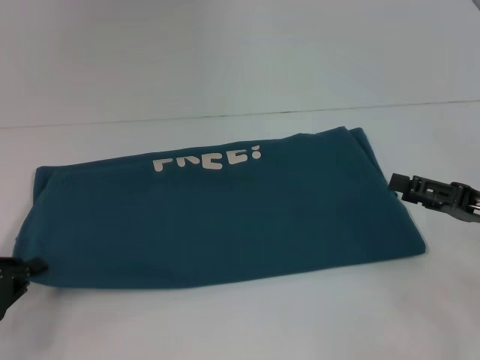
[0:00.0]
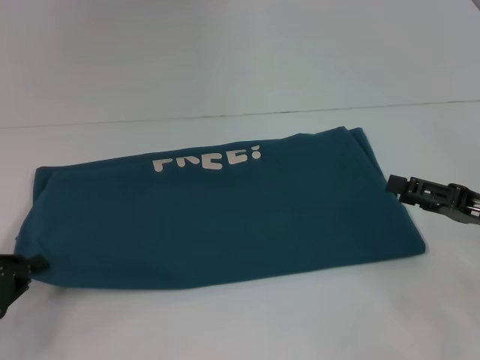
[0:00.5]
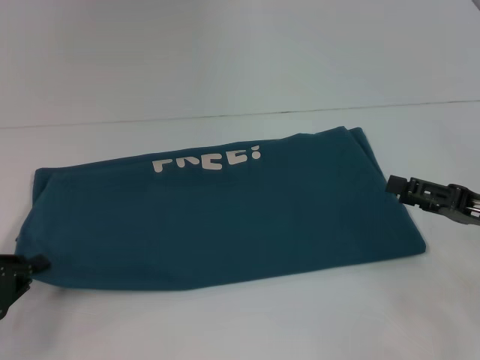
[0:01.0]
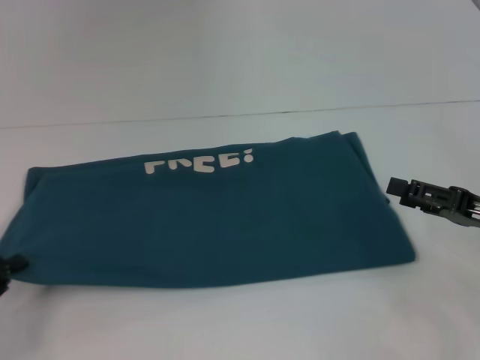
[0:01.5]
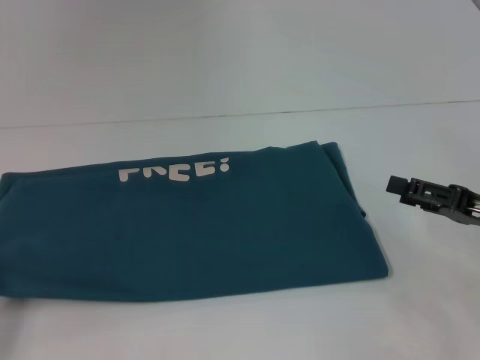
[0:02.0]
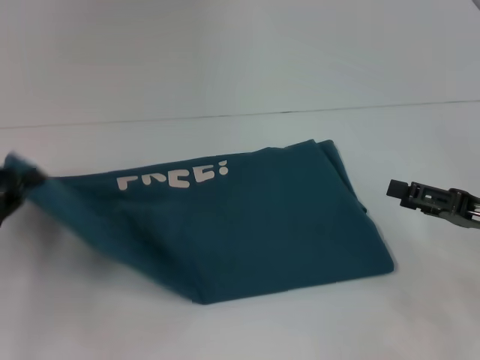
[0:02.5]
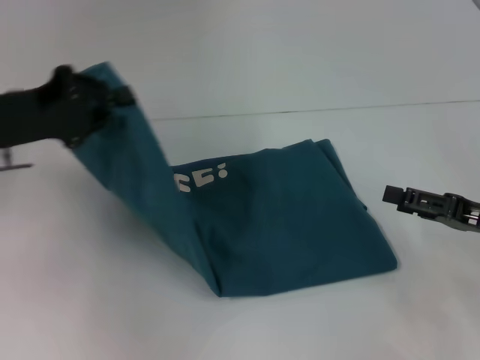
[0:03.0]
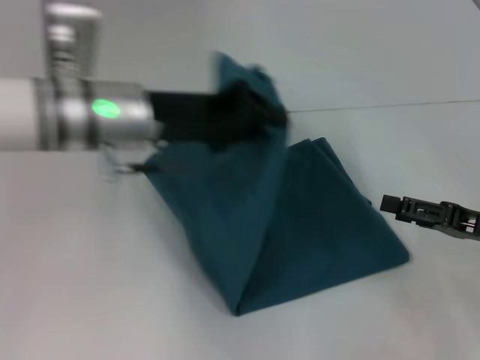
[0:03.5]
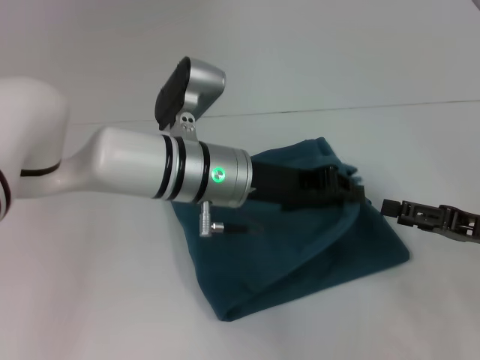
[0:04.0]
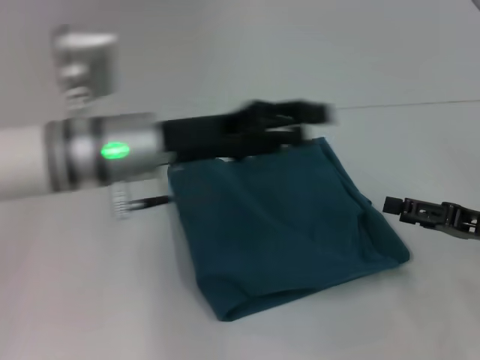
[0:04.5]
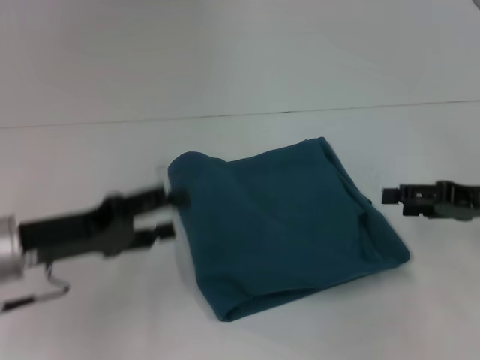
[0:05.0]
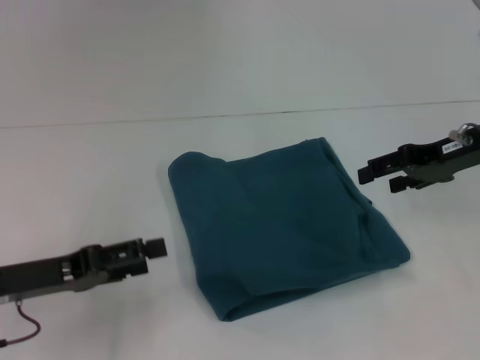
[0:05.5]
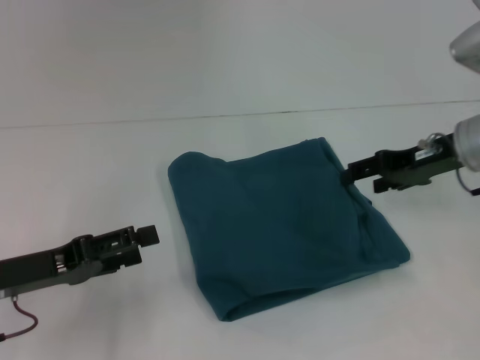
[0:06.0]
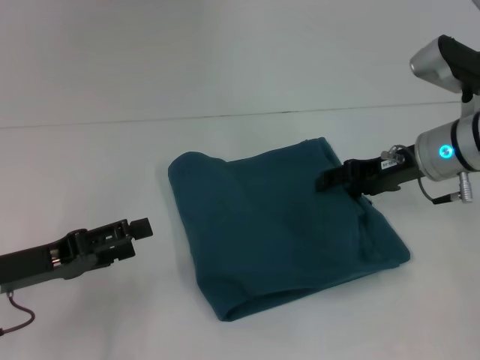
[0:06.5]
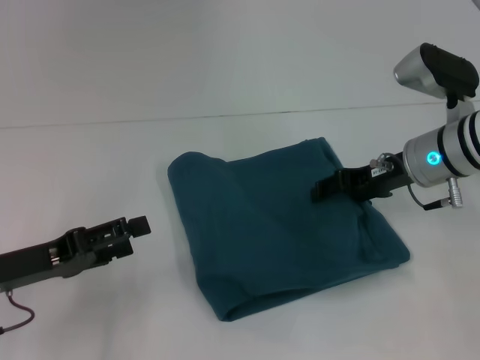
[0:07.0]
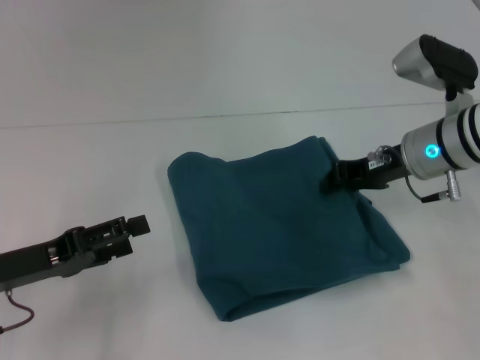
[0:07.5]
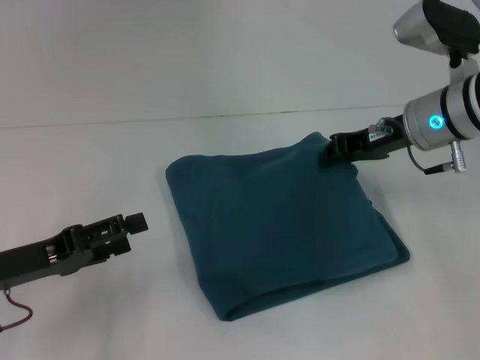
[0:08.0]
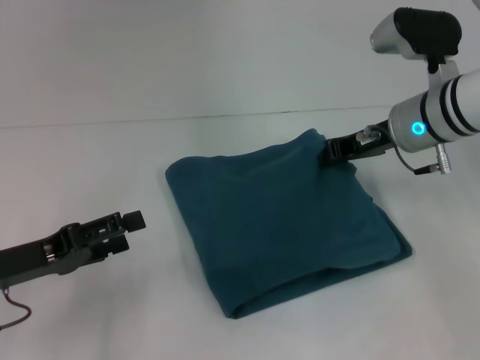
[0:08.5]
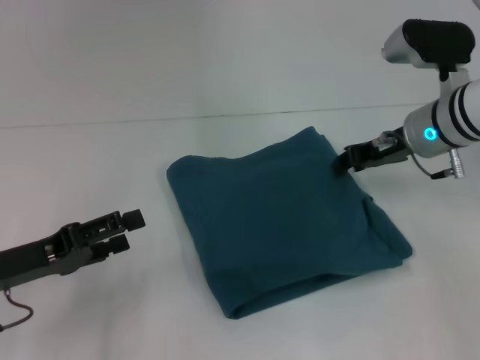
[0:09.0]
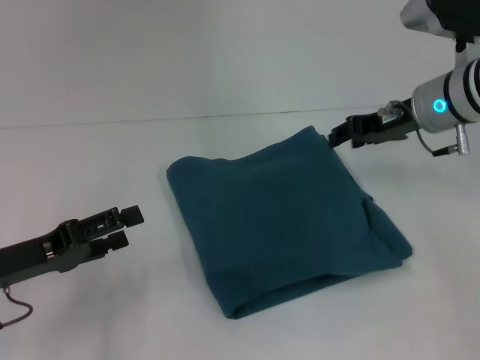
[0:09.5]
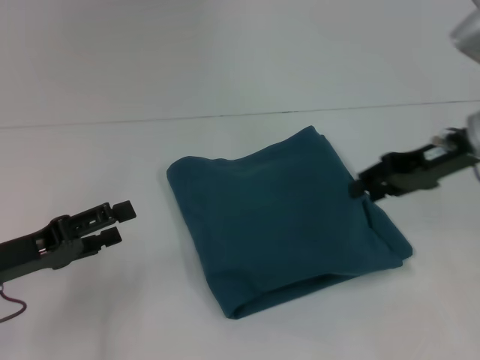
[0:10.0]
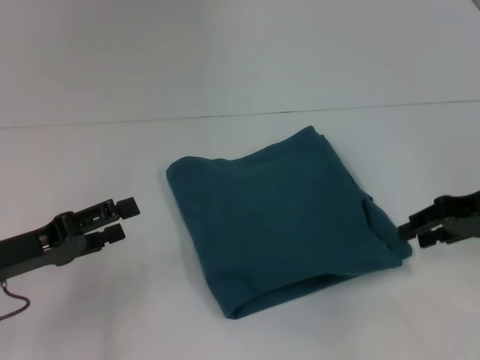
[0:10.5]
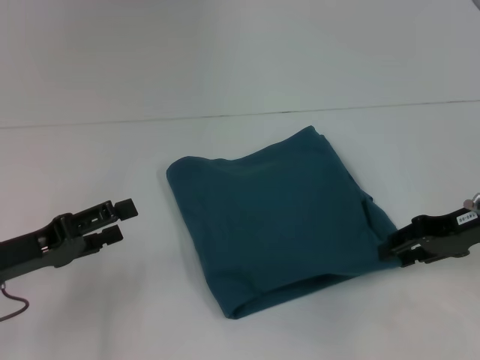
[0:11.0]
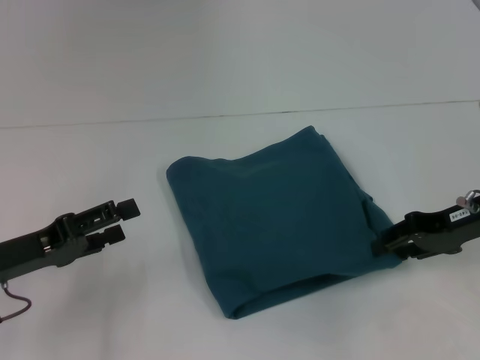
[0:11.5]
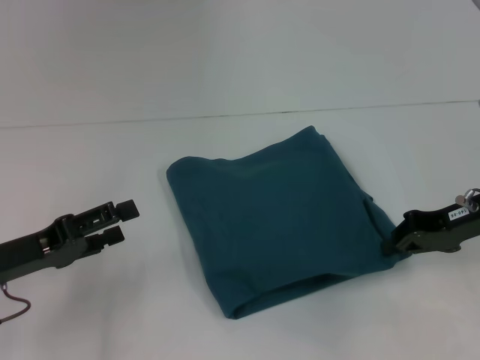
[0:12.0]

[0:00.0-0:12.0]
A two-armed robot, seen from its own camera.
Step, 0:00.0 to 0:04.0: Fold the clothes to the left.
0:00.0 to 0:02.0: There are only small adjustments of the grippers.
0:02.0 to 0:04.0: The left gripper shifts approximately 35 cm to the right and forward.
0:04.0 to 0:06.0: The right gripper shifts some 15 cm forward, upward and to the left; the left gripper shifts approximately 25 cm to the left and backward, and opens.
0:06.0 to 0:08.0: The right gripper moves to the left, about 5 cm, and closes.
0:08.0 to 0:10.0: The right gripper moves to the right, some 5 cm, and opens.
0:10.0 to 0:12.0: The right gripper ends up some 5 cm from where it was.

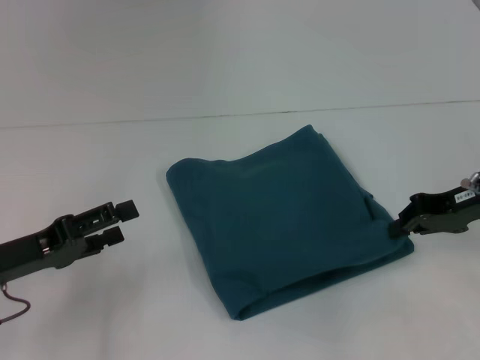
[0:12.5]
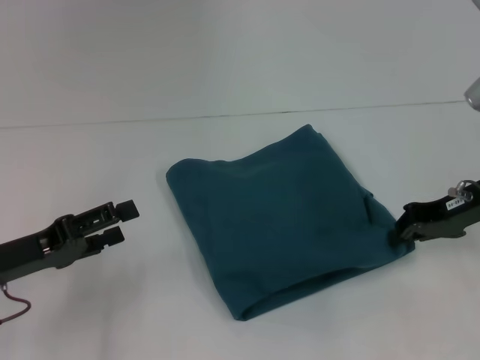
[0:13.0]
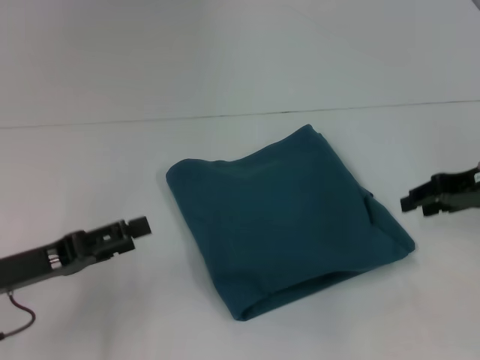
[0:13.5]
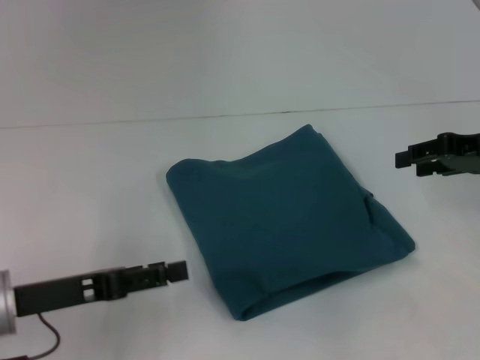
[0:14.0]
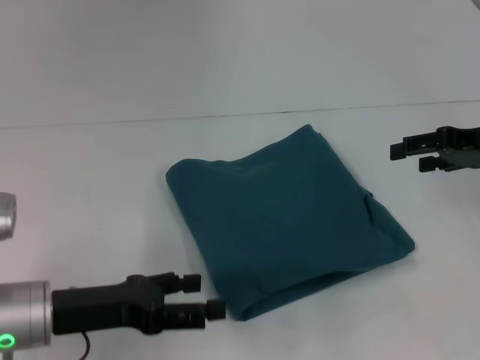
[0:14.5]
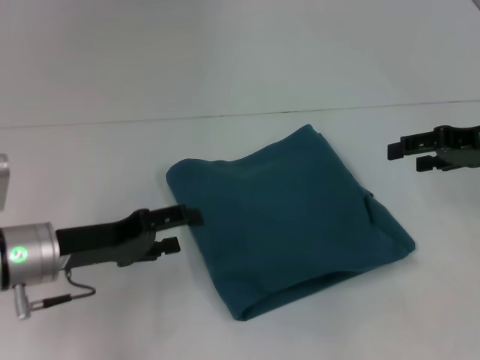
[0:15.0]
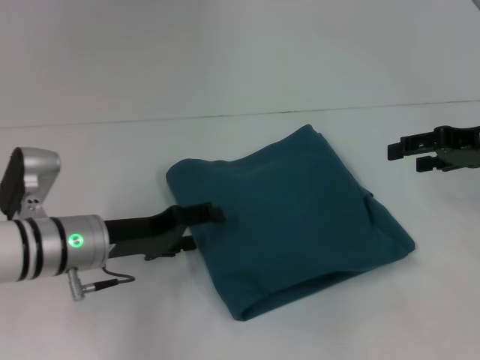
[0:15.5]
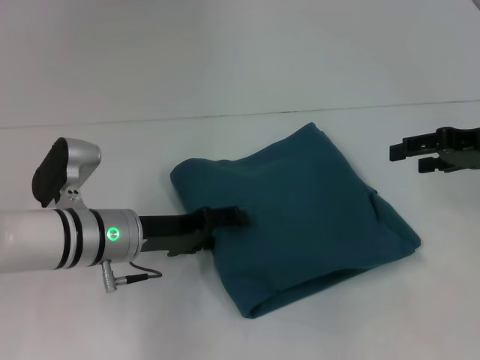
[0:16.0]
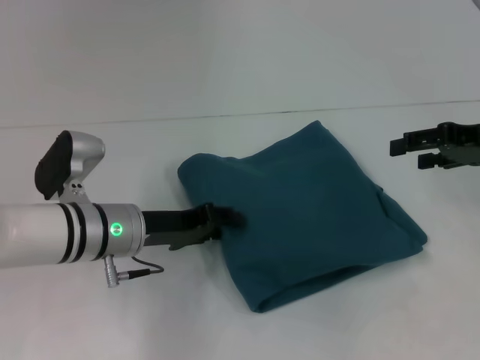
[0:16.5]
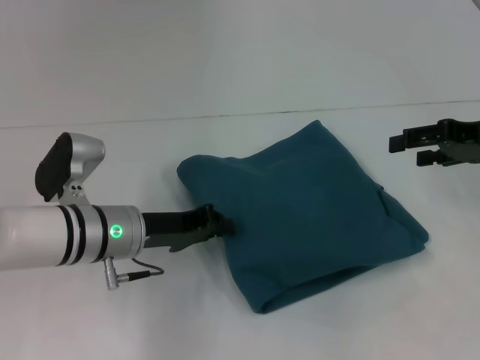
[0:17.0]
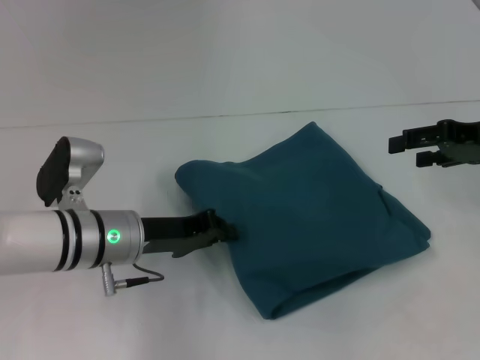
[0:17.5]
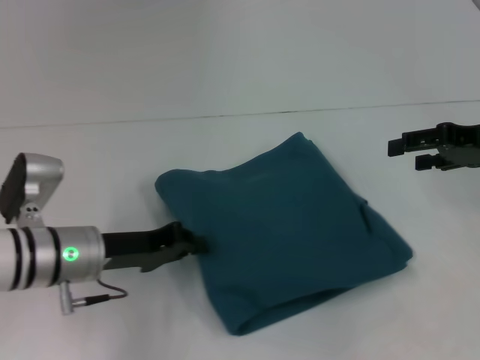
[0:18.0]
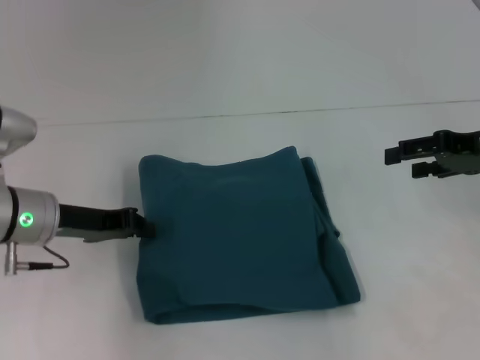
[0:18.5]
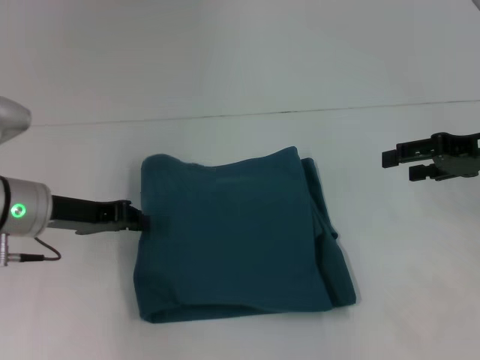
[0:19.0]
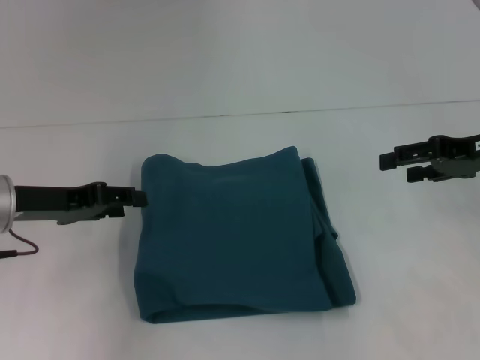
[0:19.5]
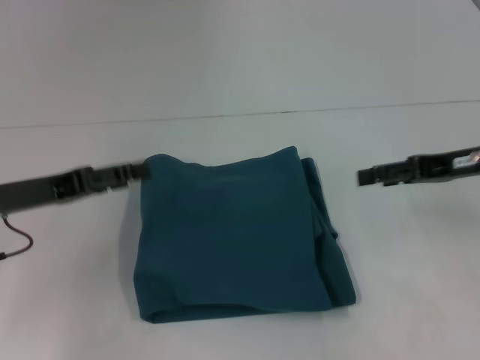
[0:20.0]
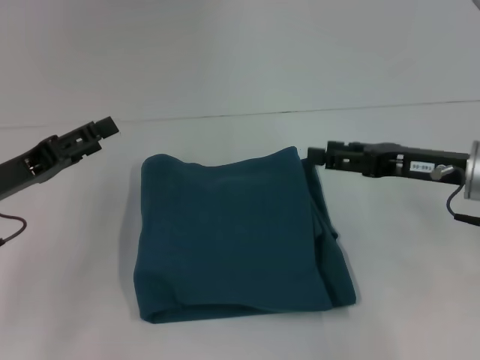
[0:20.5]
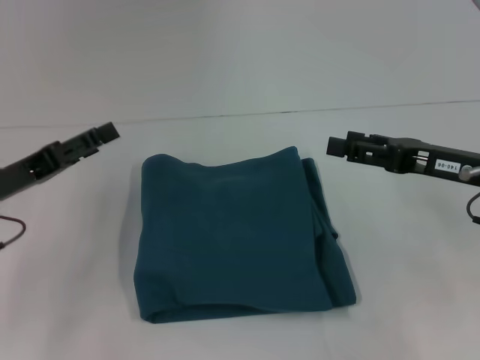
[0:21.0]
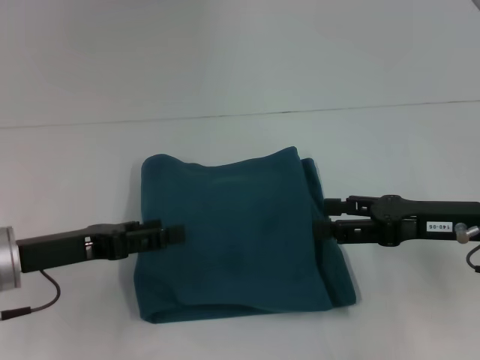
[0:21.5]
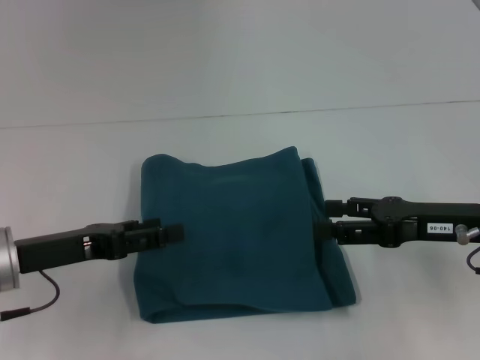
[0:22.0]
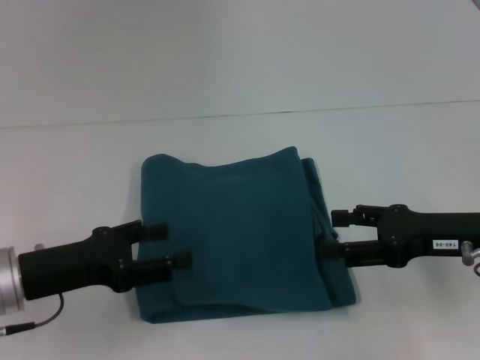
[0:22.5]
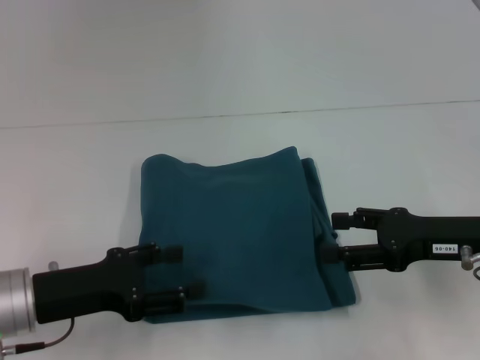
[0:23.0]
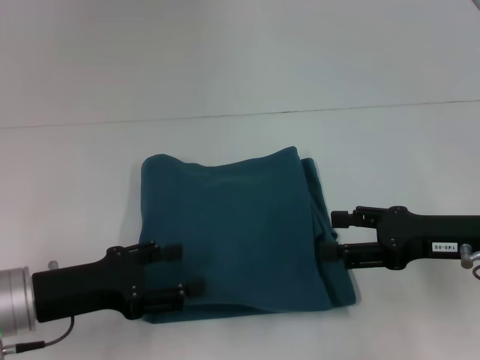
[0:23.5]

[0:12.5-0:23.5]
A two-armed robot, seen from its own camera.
0:12.5 to 0:14.5: The left gripper travels to the right by roughly 5 cm. Meanwhile the right gripper opens up.
0:14.5 to 0:16.0: The left gripper travels forward and to the right by some 10 cm.
0:16.0 to 0:18.0: The left gripper closes.
0:18.0 to 0:20.0: The left gripper moves to the left and upward, roughly 10 cm, and opens.
0:20.0 to 0:21.5: The right gripper moves backward, about 5 cm.

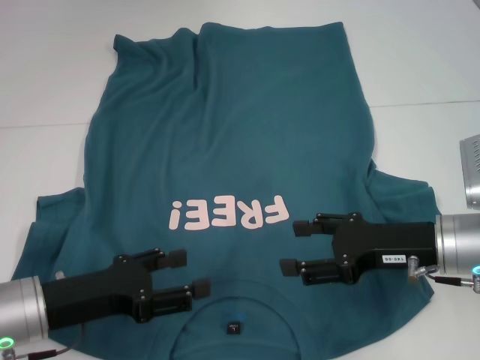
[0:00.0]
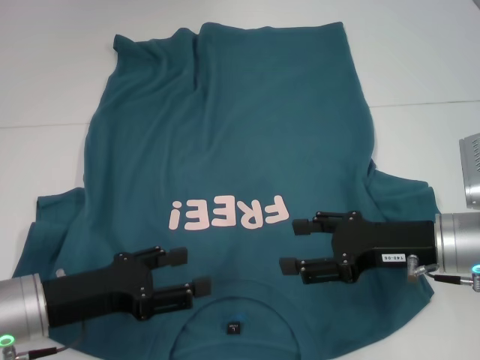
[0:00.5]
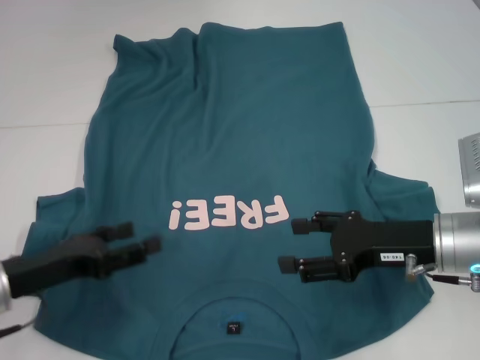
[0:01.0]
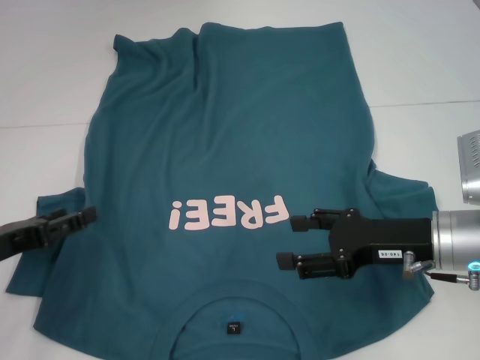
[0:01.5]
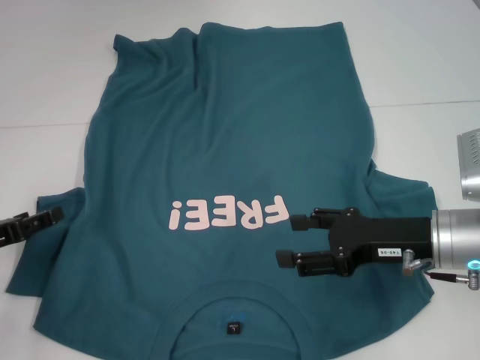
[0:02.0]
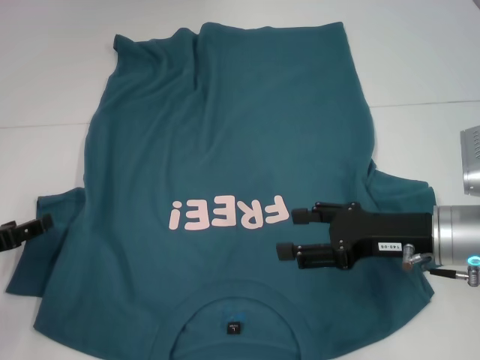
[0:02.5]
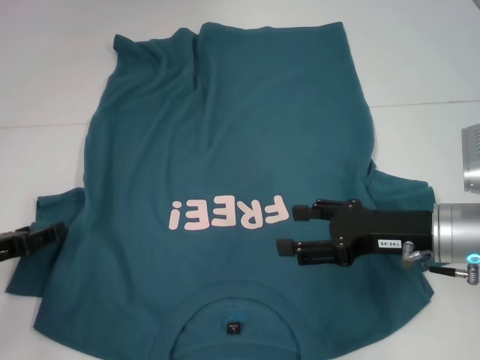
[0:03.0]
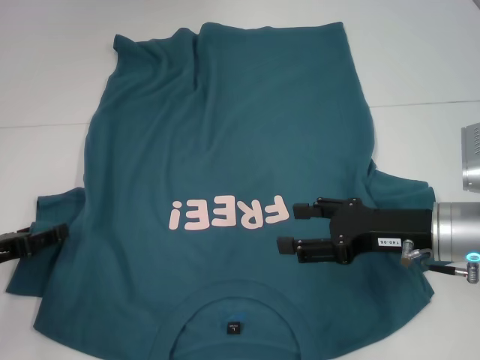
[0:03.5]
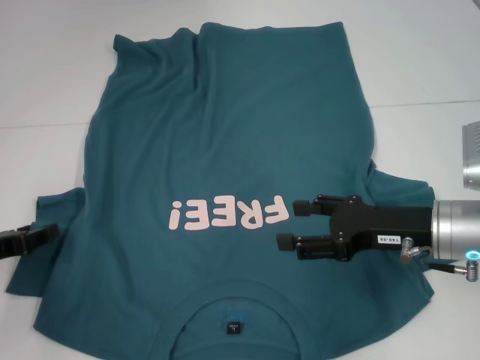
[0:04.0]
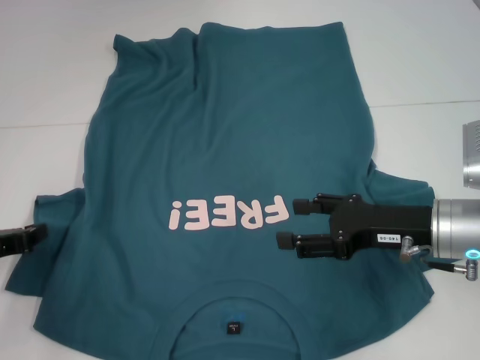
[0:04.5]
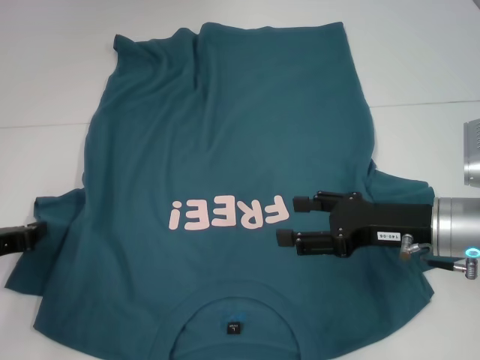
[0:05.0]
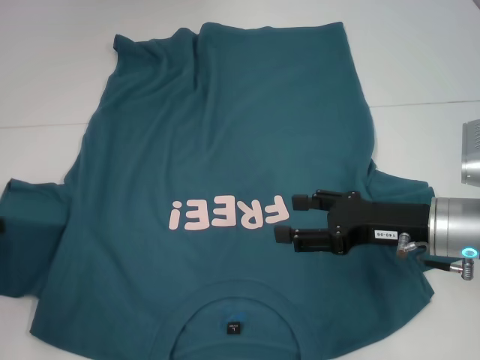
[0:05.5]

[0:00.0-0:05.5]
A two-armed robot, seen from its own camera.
0:00.0 to 0:02.0: The left gripper heads to the left, covering approximately 10 cm.
0:02.0 to 0:03.5: The grippers move only a little.
0:03.5 to 0:05.5: The left gripper closes.
